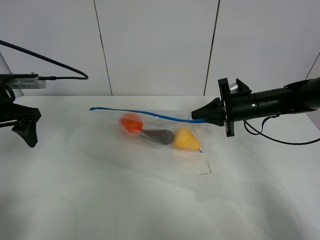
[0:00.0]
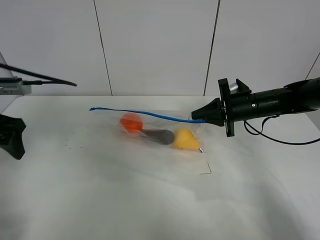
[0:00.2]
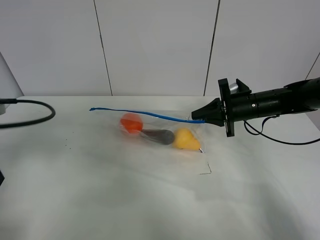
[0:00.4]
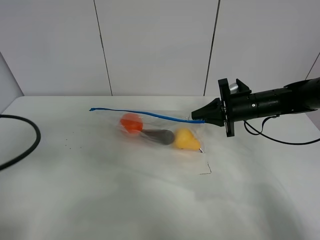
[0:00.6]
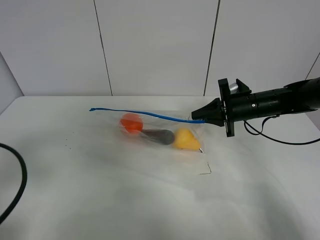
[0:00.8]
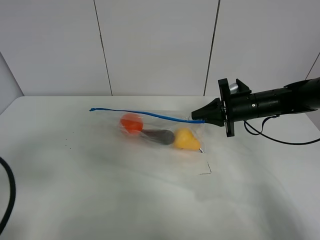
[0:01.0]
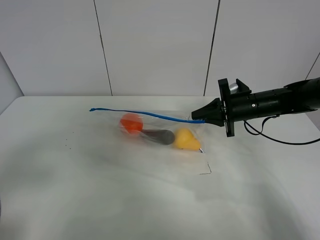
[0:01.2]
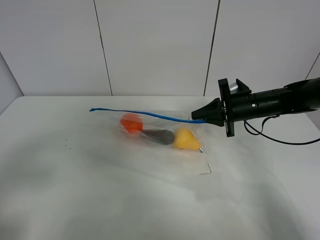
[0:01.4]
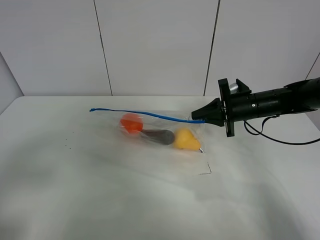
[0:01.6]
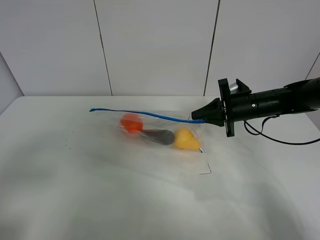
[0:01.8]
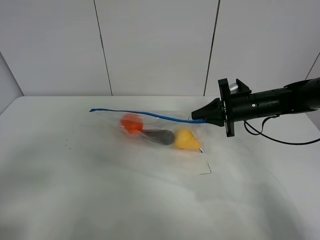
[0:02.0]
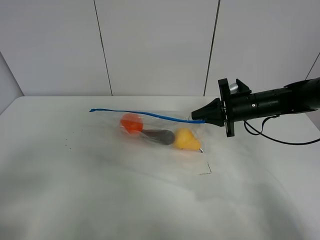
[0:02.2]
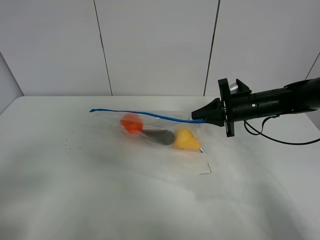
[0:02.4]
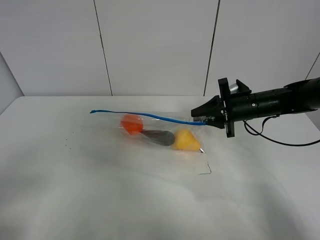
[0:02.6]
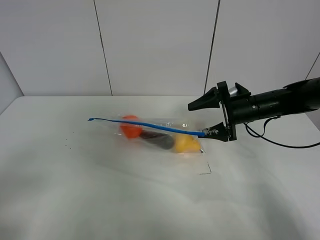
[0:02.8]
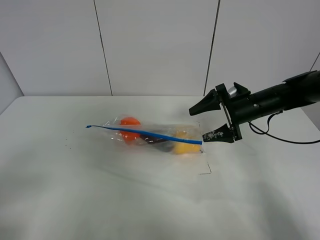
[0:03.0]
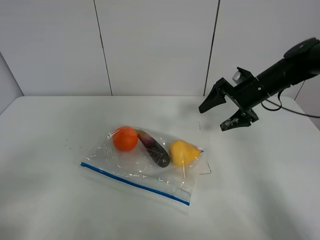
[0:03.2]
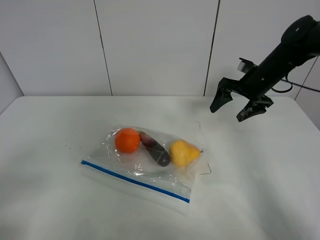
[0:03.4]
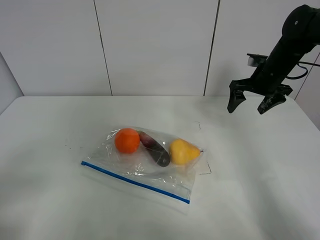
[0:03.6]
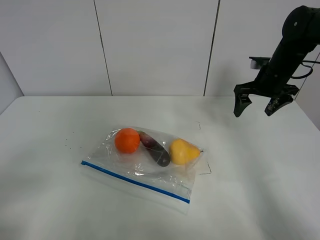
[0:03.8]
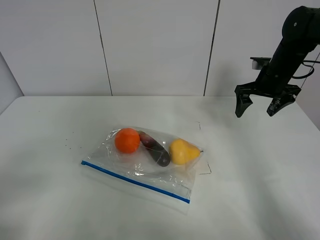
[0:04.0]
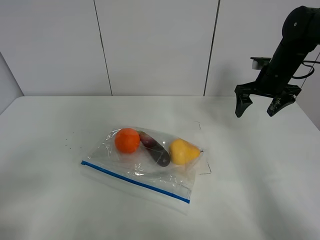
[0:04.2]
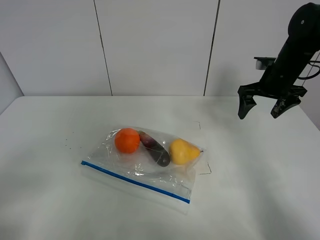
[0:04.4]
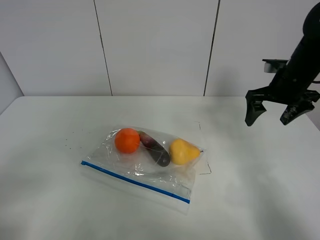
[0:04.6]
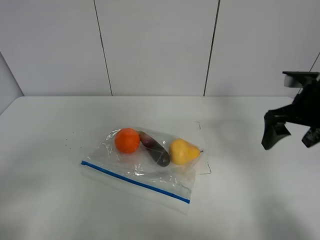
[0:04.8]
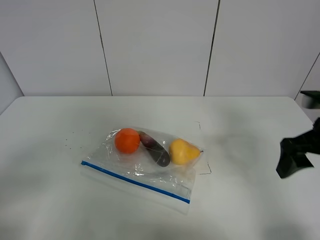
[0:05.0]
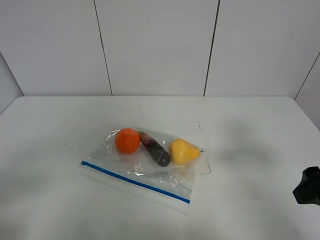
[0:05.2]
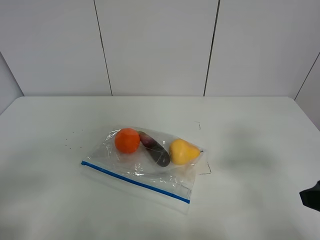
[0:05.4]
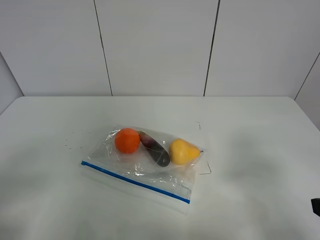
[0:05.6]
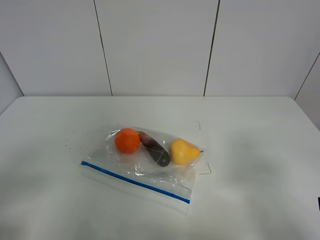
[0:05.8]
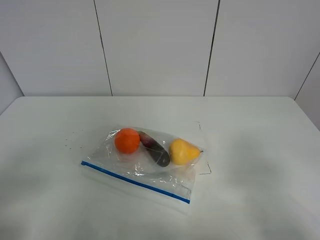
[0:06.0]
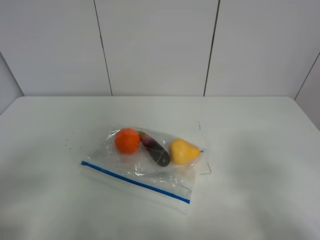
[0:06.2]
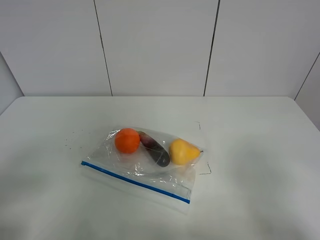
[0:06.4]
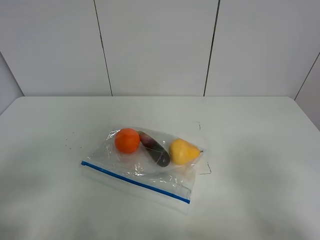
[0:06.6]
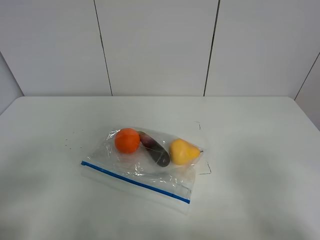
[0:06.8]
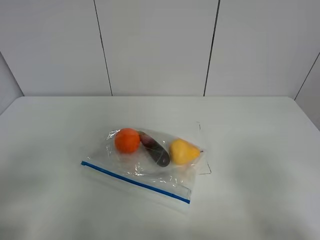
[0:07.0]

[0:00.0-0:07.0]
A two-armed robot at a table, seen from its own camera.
Step, 0:00.0 to 0:03.2: Place the fruit bag with right gripper.
0:00.0 to 0:01.4: The left gripper goes some 25 cm backward.
0:01.4 to 0:02.8: The right gripper opens. The left gripper travels backward by some 5 cm.
0:02.8 to 0:04.2: The right gripper is displaced upward, forward and to the right by roughly 10 cm.
0:04.2 to 0:05.6: The right gripper heads backward, covering about 35 cm.

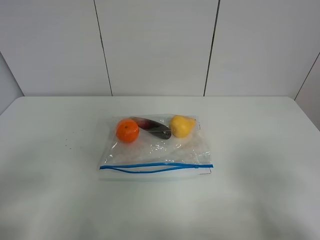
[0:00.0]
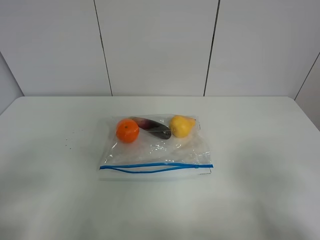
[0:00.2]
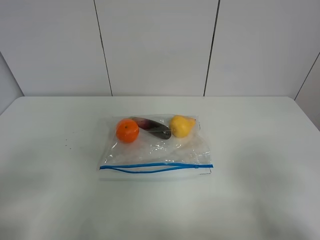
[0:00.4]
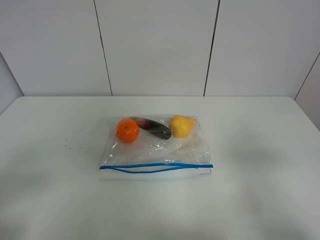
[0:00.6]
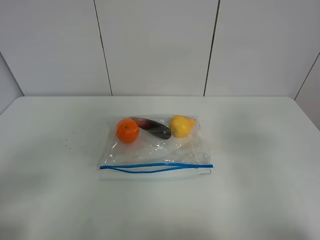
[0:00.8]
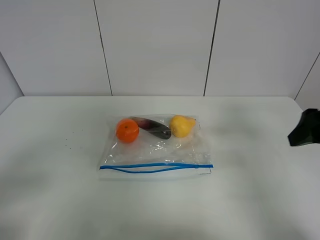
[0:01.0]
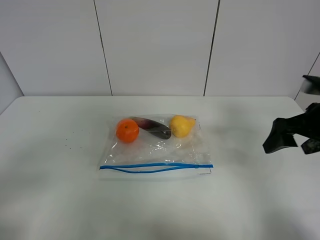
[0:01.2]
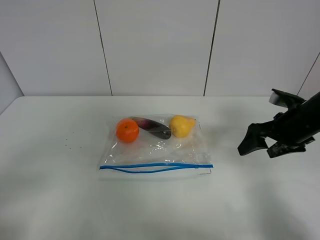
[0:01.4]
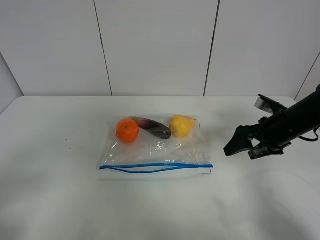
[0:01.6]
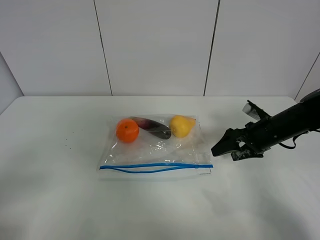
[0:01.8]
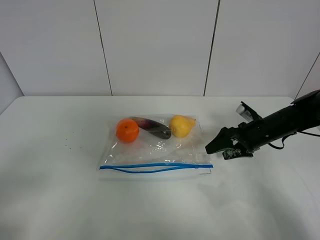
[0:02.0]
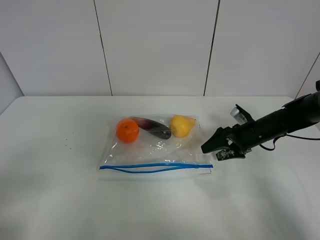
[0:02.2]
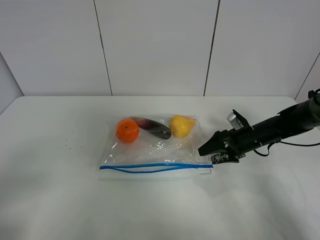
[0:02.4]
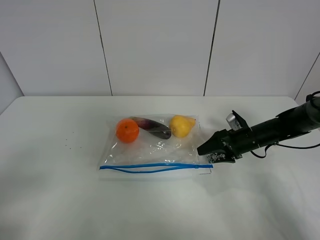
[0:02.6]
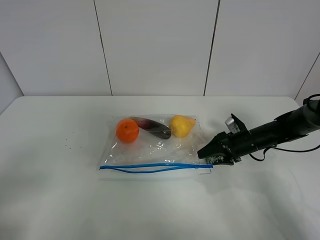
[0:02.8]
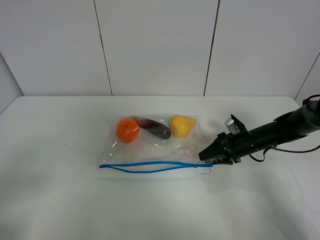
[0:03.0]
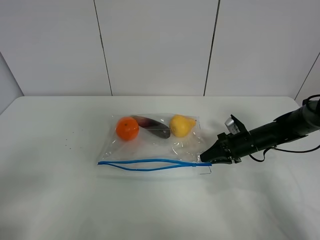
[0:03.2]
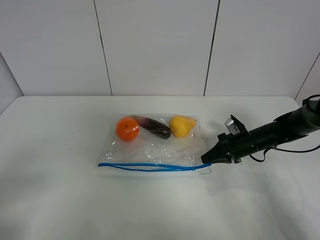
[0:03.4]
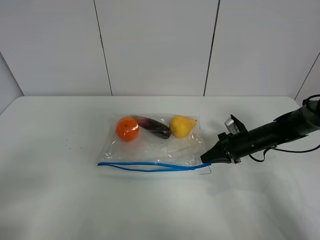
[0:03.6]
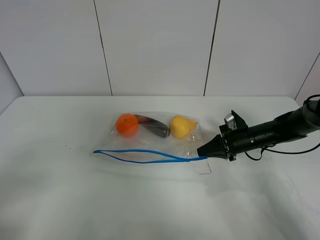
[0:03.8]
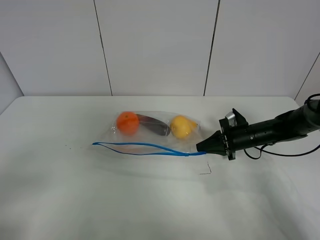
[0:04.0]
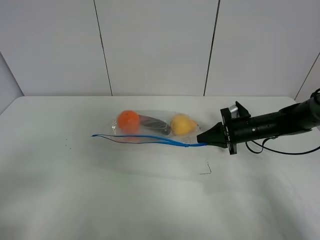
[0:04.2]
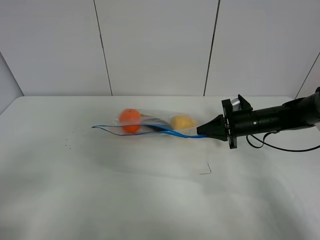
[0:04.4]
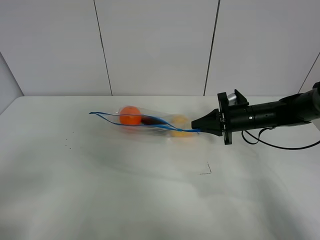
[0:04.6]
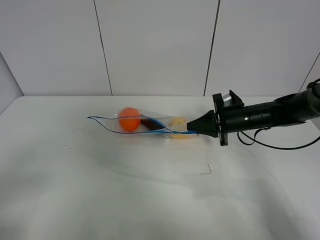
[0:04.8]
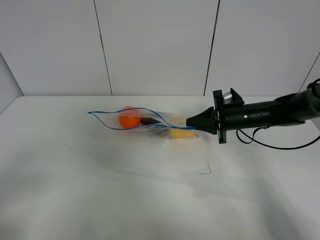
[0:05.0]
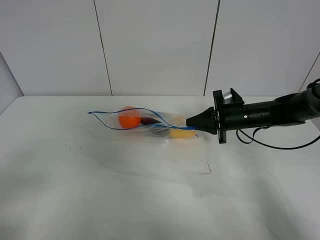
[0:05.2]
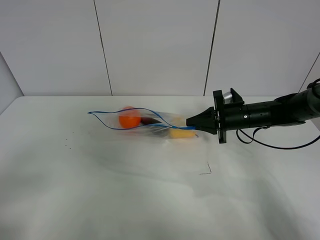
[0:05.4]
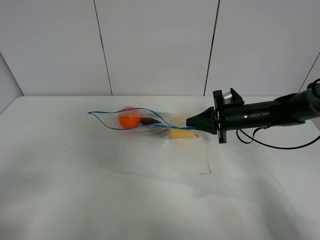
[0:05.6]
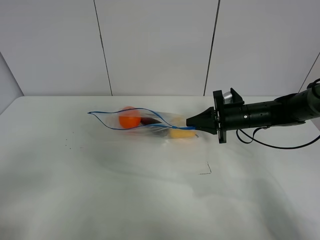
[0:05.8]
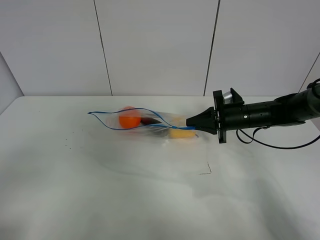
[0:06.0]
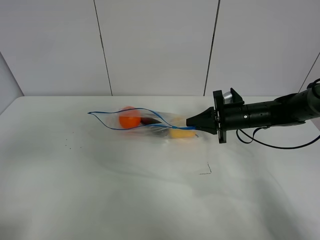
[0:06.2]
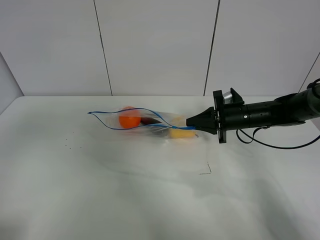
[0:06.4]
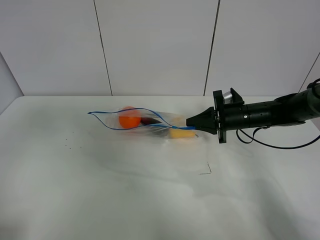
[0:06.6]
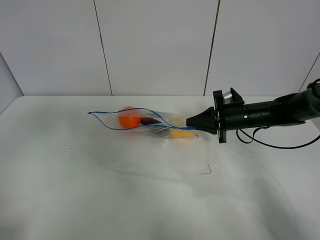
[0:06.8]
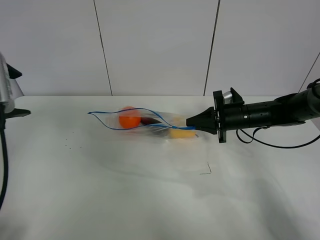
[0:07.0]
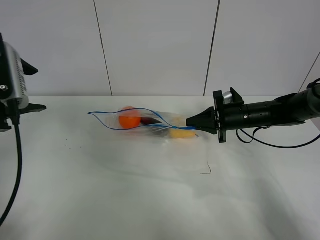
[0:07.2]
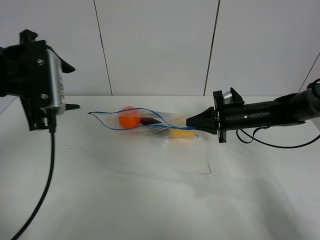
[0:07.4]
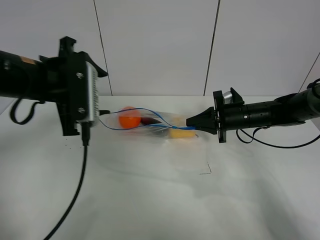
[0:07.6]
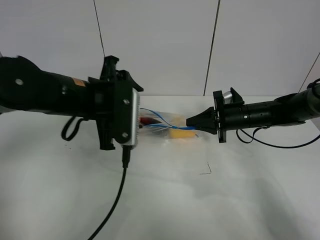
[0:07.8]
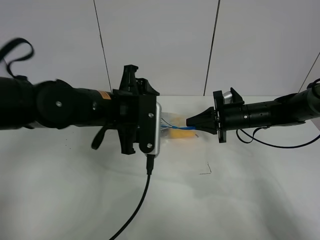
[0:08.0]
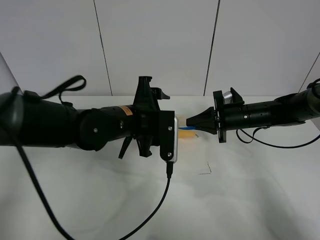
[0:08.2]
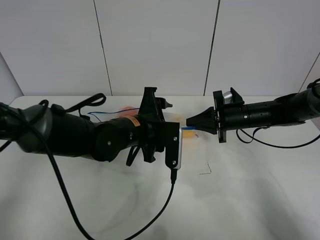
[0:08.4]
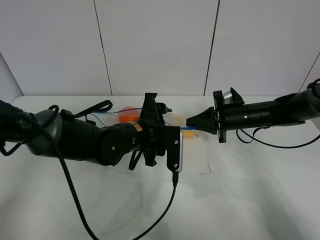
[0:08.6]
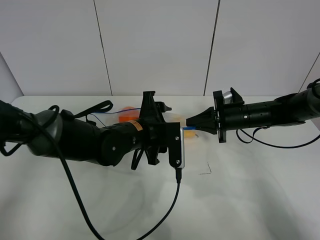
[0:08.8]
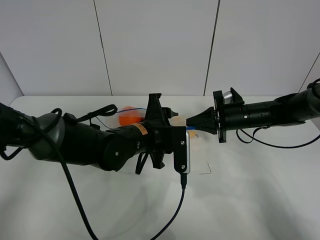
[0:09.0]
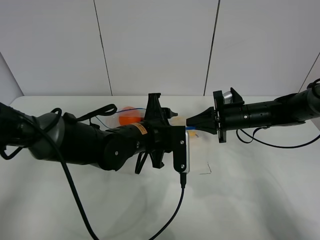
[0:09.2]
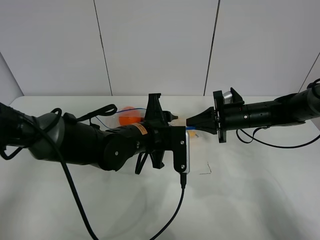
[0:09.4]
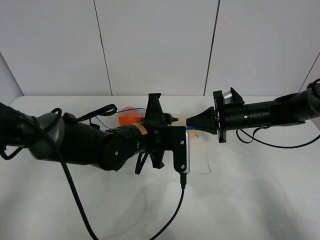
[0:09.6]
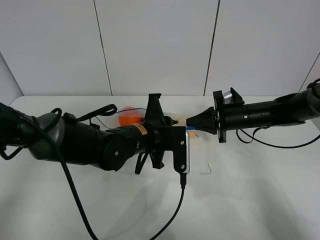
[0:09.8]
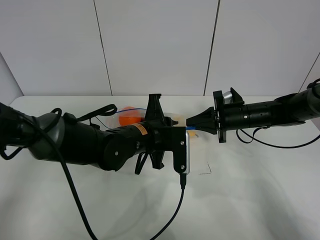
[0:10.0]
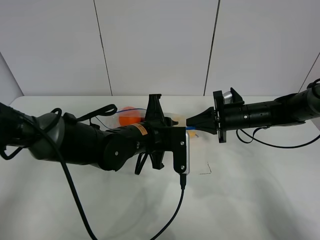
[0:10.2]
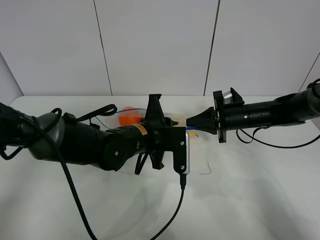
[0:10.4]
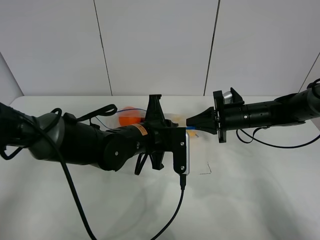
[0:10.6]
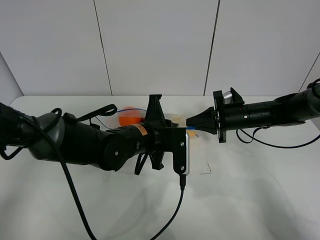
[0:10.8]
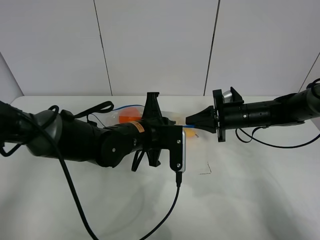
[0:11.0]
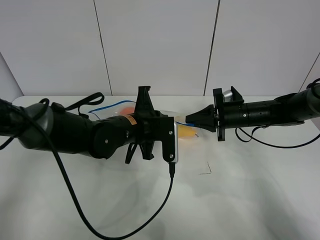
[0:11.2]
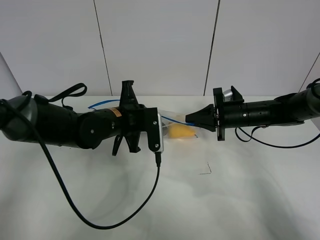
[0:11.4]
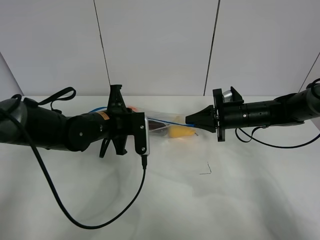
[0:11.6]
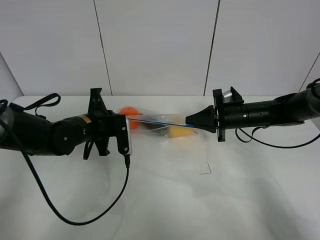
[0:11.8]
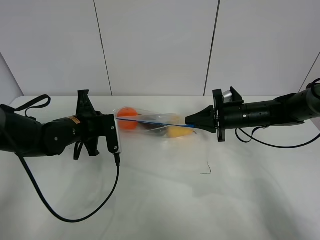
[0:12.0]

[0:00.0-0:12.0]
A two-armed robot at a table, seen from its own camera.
Step, 0:00.0 to 0:03.2: Grasp the fruit bag with right gripper.
Step, 0:03.4 to 0:05.0: Lift the fruit bag with your right gripper.
0:00.0 to 0:01.6: The right gripper heads forward, covering approximately 30 cm.
0:01.6 to 0:03.0: The right gripper travels downward by some 10 cm, and closes.
0:03.0 to 0:04.4: The right gripper moves upward, approximately 5 cm, and closes.
0:04.4 to 0:06.0: The grippers move only a little.
0:06.0 to 0:07.6: The left gripper goes some 30 cm forward and to the right.
0:07.6 to 0:09.0: The left gripper is displaced to the right and downward by roughly 20 cm.
0:09.0 to 0:10.4: The left gripper closes its fingers.
0:10.4 to 0:12.0: The left gripper shifts some 15 cm to the left.

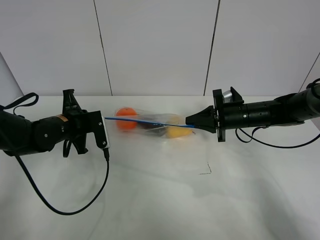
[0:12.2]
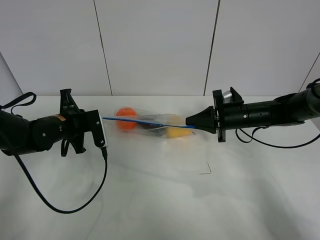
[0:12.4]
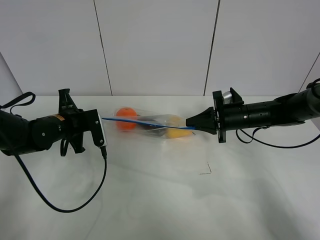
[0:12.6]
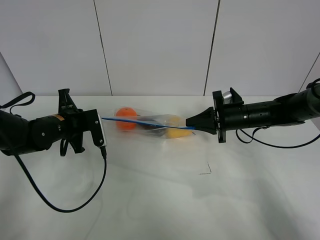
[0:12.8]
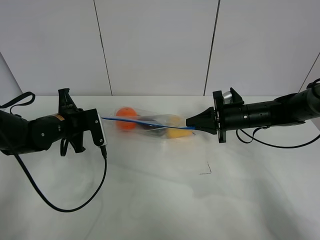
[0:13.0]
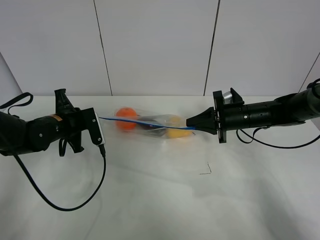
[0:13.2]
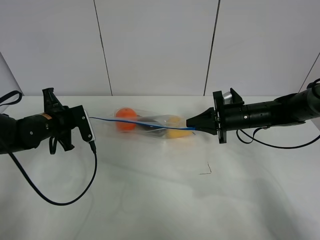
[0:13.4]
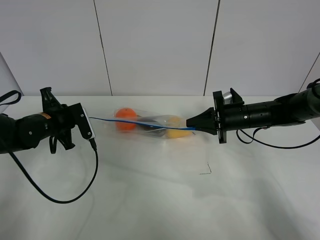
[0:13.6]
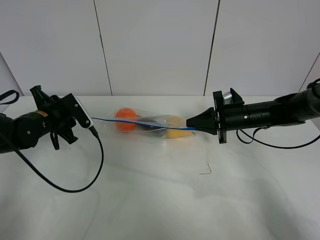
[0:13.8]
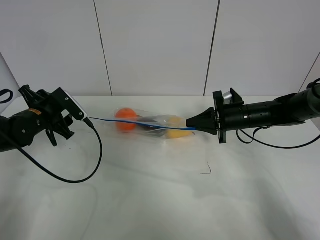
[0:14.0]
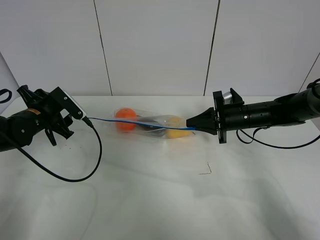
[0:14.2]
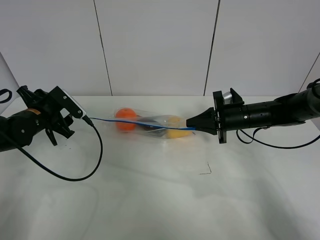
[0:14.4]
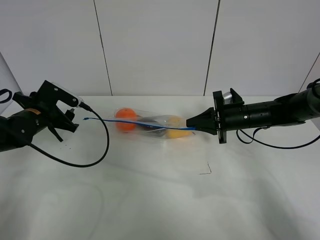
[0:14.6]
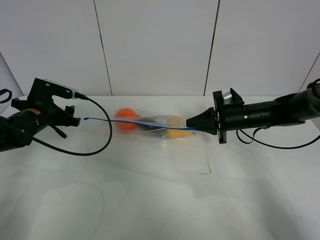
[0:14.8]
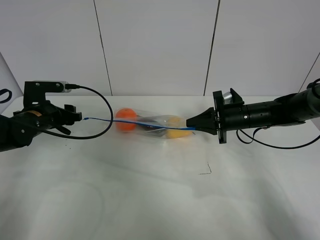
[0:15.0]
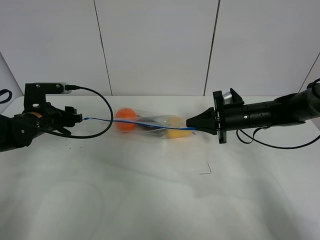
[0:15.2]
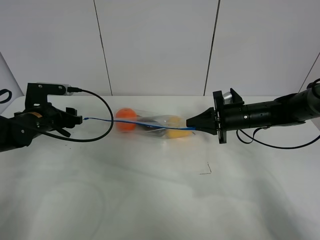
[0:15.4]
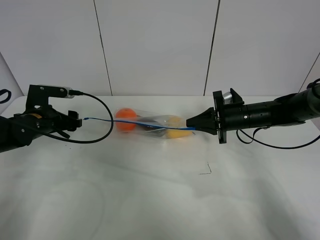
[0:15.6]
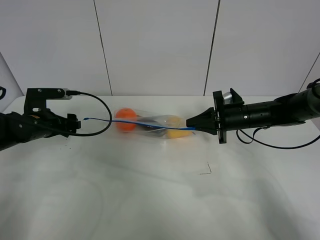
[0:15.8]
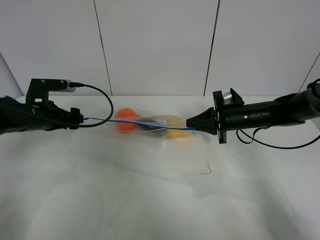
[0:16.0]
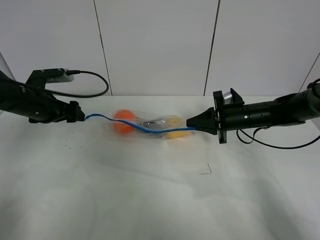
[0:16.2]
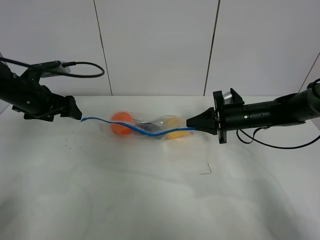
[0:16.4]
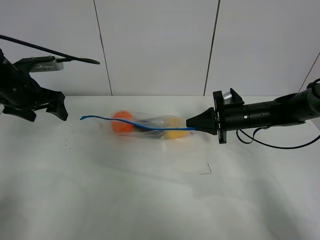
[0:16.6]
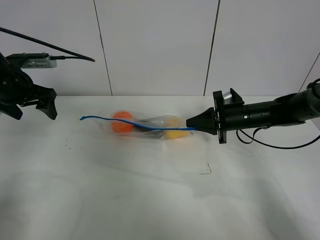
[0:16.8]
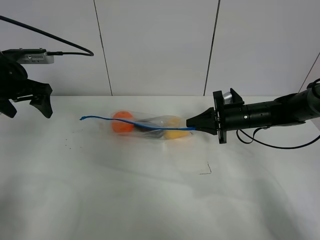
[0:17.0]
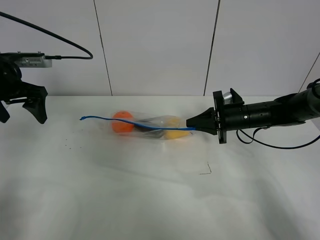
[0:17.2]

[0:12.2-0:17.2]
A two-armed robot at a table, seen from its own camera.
0:12.2 to 0:13.8: The left gripper opens up.
0:15.6 to 0:17.2: The left gripper heads upward, covering approximately 15 cm.
